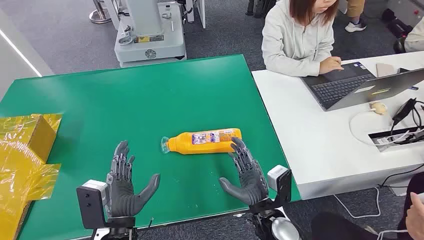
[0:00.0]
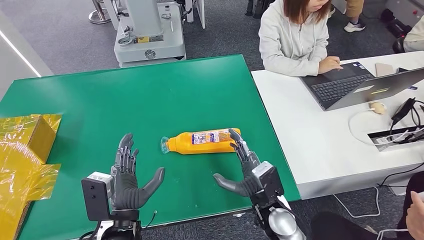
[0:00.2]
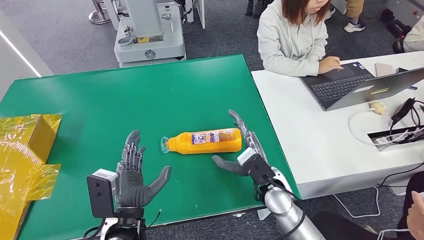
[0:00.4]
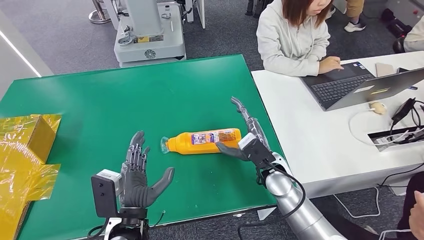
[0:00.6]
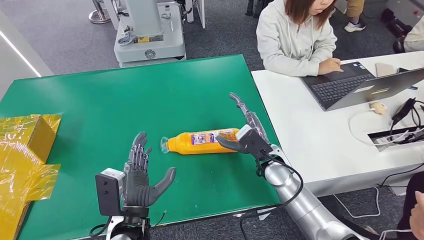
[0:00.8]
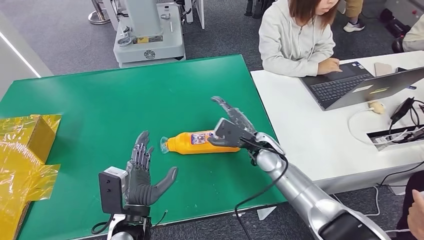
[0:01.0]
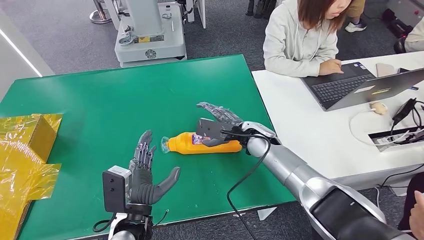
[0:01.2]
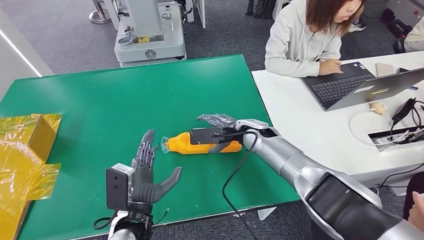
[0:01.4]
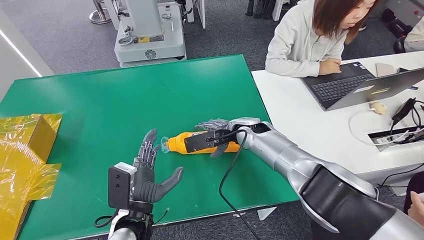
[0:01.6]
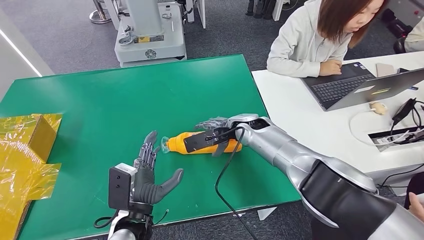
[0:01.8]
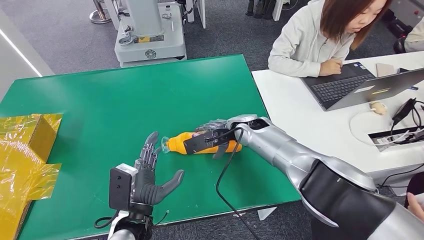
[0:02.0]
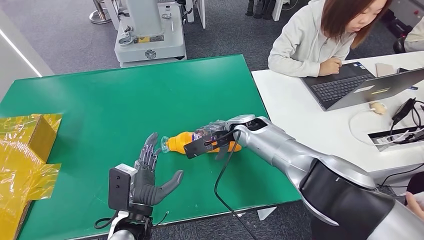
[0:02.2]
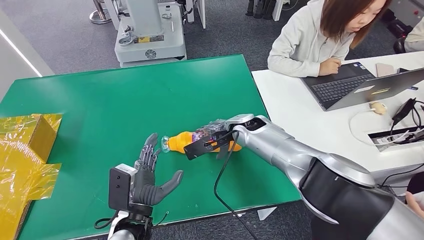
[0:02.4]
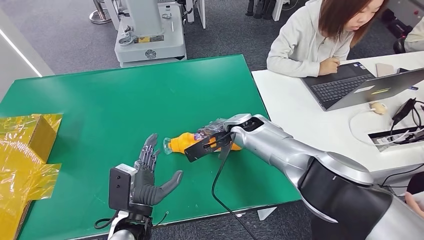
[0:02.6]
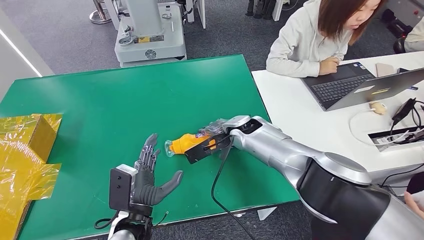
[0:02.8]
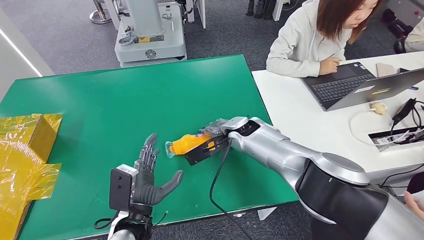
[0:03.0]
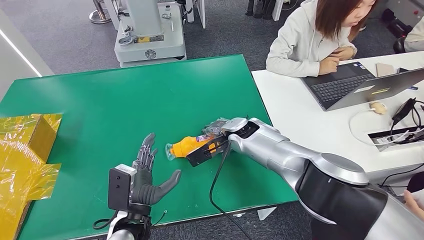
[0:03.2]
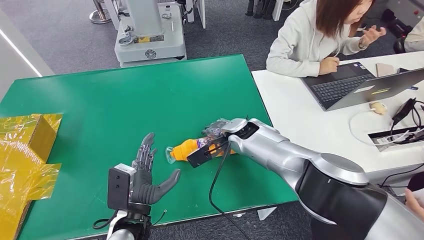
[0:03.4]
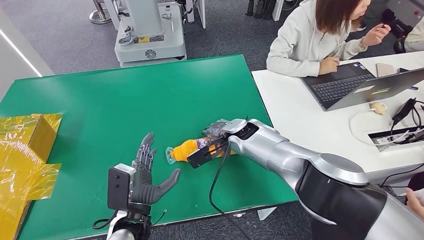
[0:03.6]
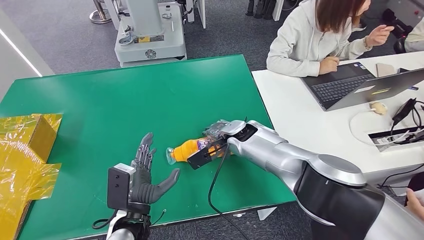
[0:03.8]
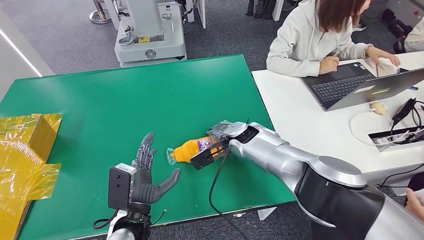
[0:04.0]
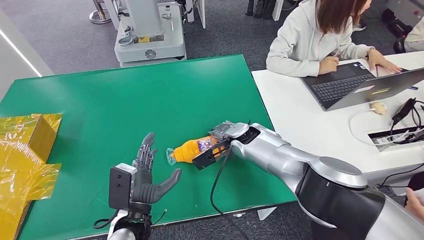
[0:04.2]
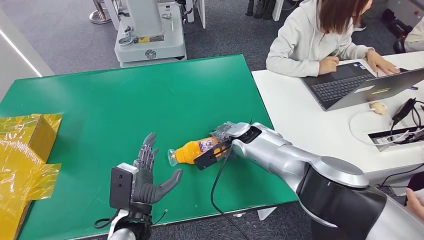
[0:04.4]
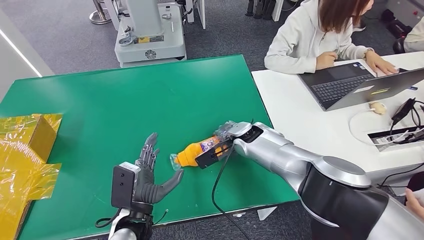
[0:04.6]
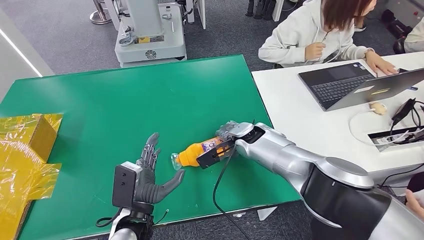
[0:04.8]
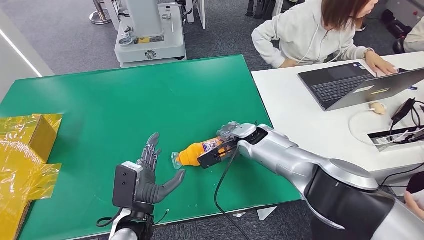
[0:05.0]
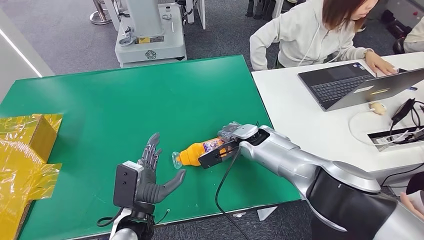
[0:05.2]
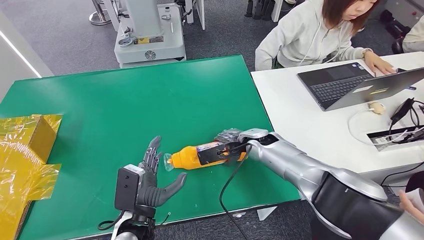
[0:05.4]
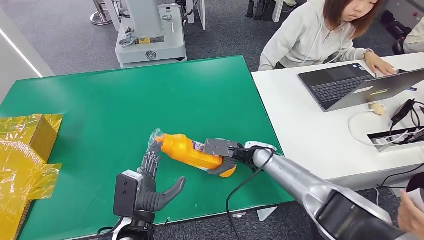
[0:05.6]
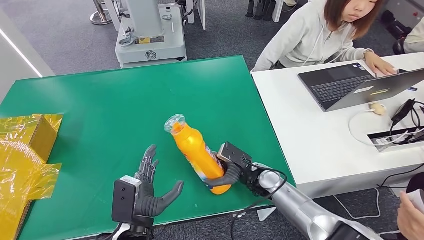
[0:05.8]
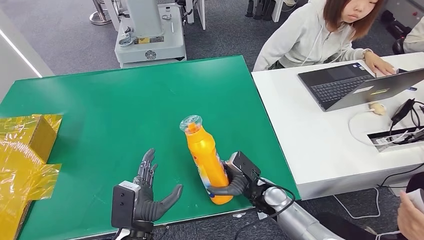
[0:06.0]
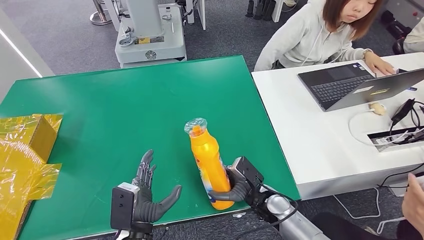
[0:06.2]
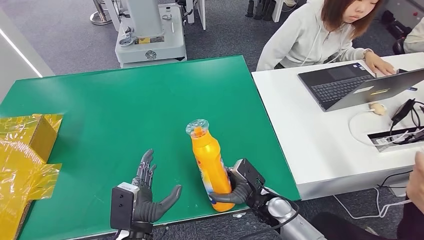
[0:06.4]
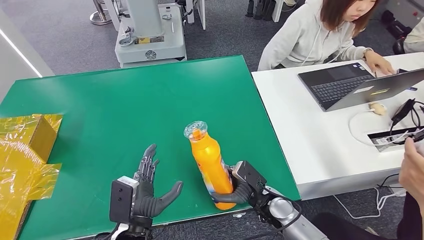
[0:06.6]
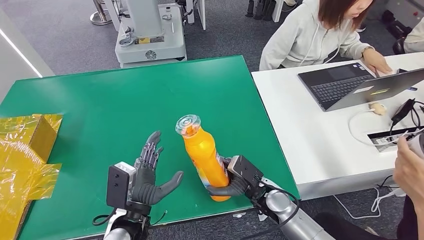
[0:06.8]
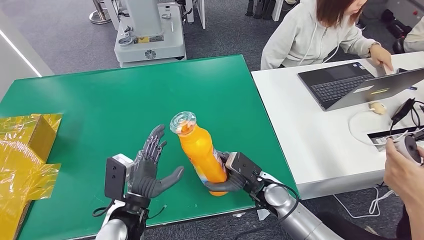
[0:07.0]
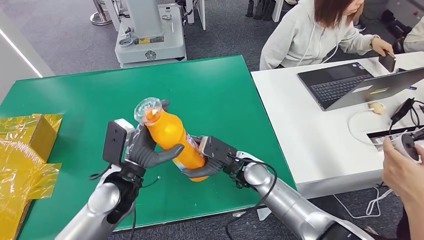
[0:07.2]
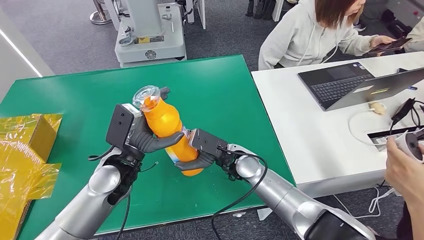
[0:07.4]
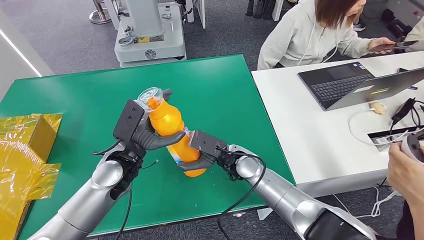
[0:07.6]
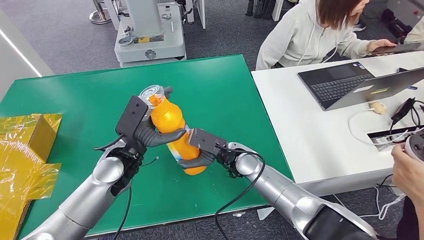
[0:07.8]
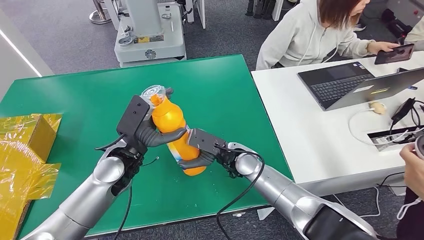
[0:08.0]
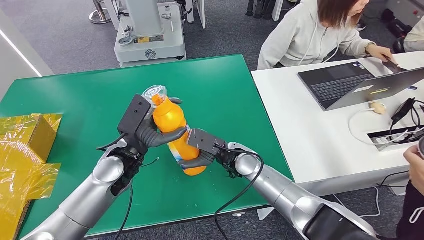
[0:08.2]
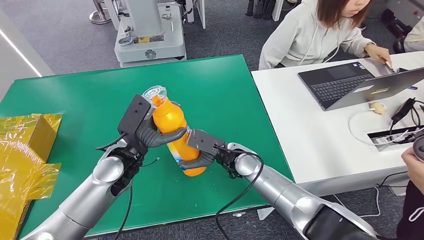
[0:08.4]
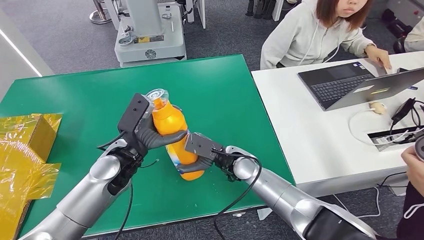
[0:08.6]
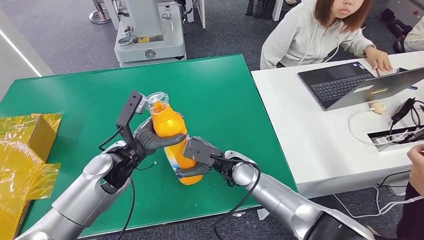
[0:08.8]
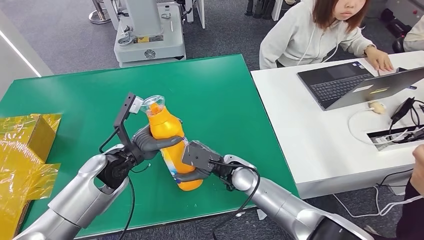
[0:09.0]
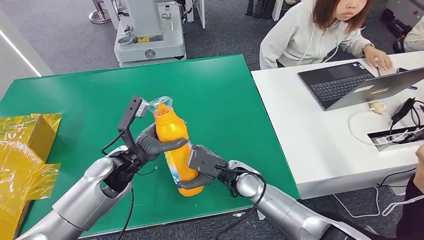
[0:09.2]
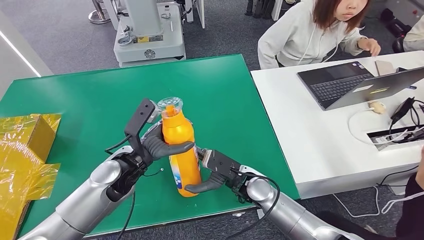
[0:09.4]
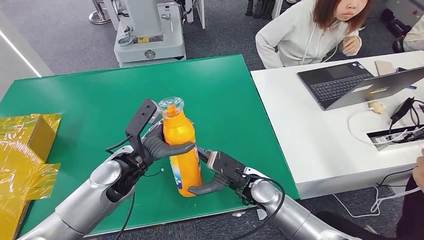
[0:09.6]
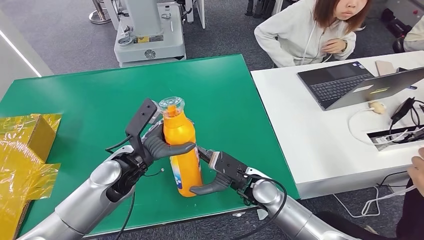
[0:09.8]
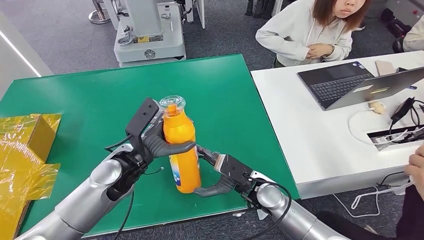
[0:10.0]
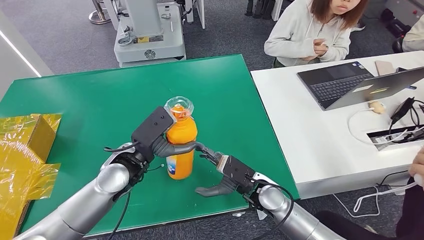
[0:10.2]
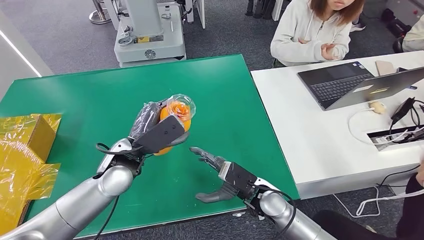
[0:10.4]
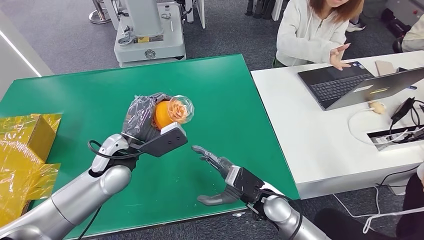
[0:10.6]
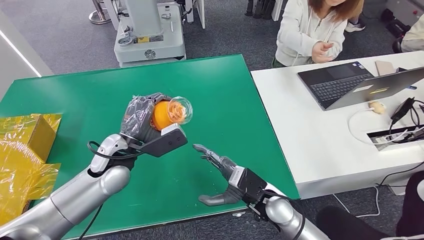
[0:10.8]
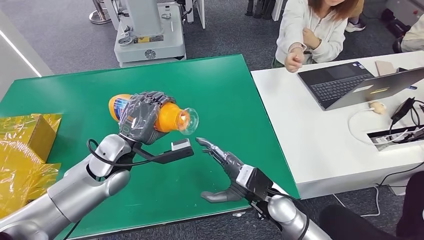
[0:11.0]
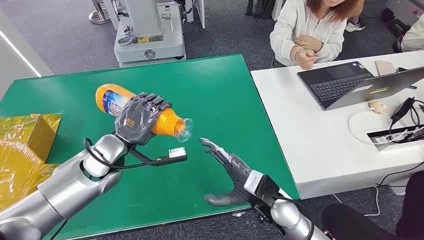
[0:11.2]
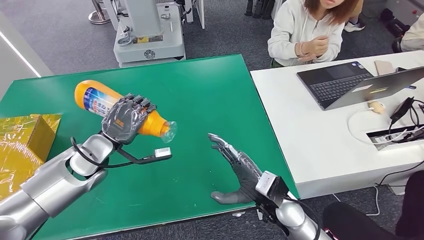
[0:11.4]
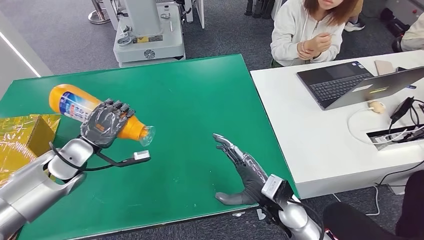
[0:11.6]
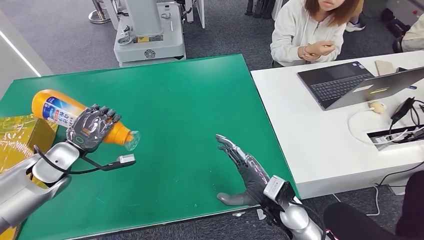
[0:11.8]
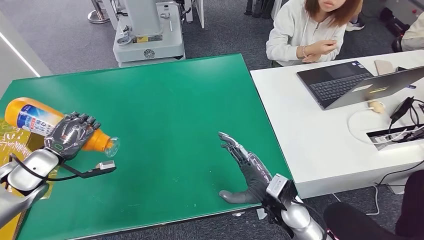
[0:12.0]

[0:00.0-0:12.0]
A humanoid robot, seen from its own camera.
Step, 0:00.0 to 0:06.0: Pick up the bottle from the table.
0:03.0 to 0:04.4: The hands move only a little.
0:09.0 to 0:10.4: The right hand goes some 5 cm backward. Meanwhile the left hand moves upward, about 5 cm.

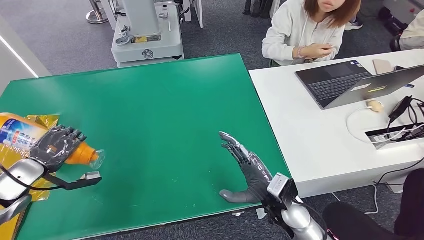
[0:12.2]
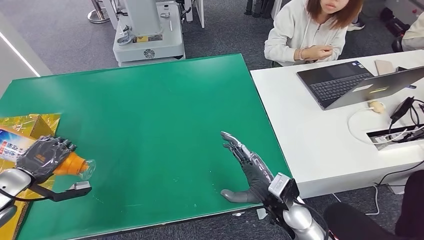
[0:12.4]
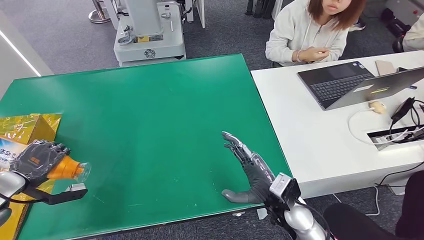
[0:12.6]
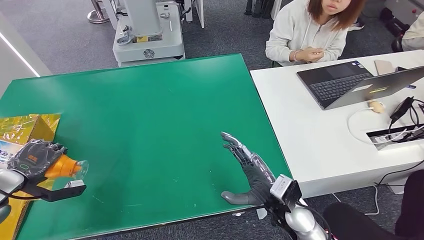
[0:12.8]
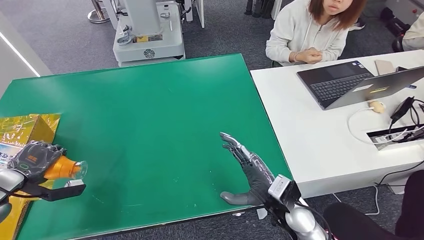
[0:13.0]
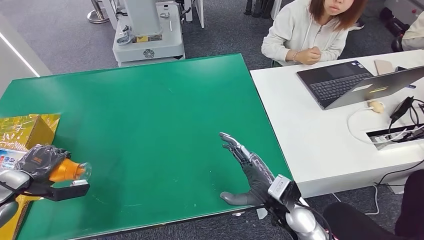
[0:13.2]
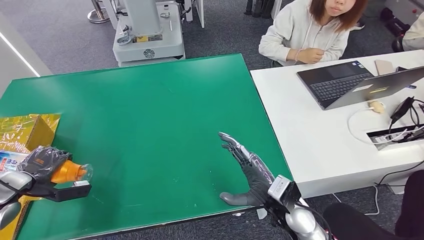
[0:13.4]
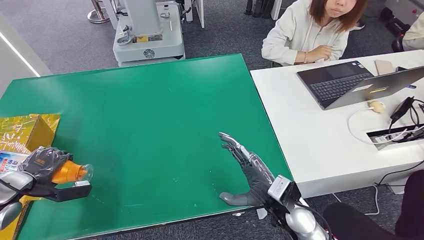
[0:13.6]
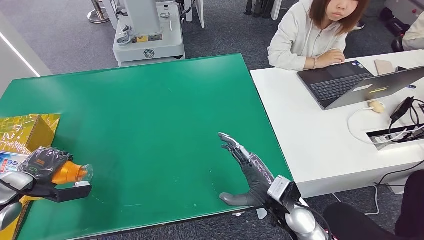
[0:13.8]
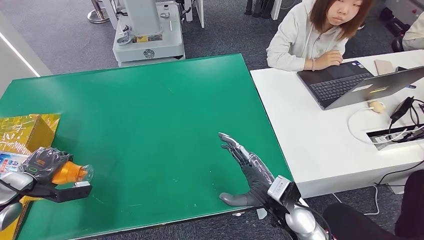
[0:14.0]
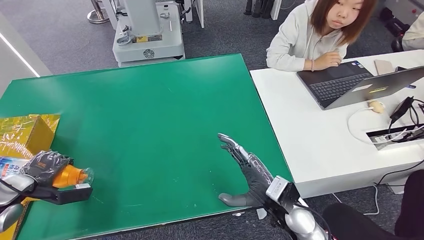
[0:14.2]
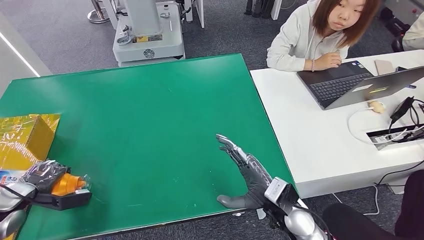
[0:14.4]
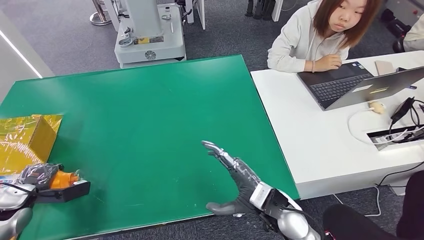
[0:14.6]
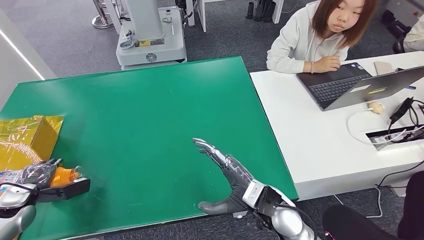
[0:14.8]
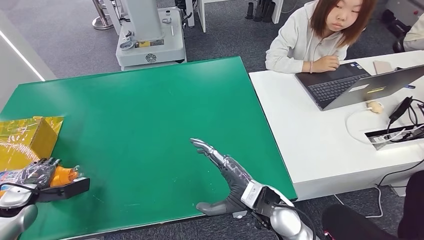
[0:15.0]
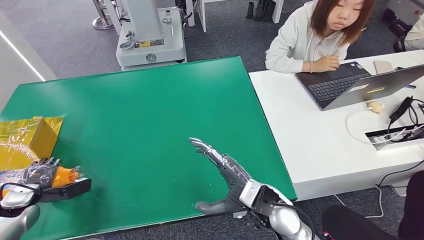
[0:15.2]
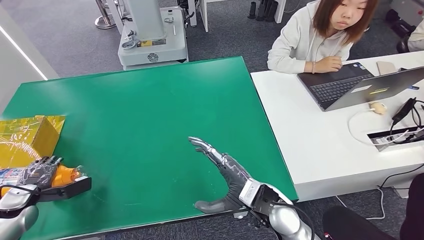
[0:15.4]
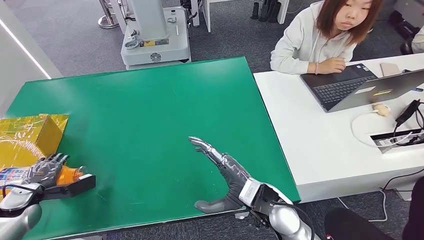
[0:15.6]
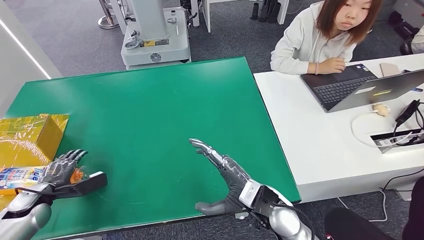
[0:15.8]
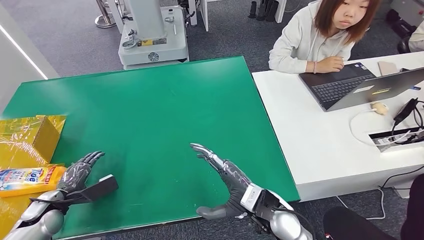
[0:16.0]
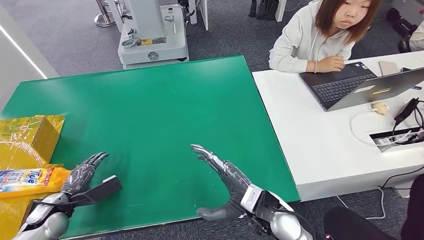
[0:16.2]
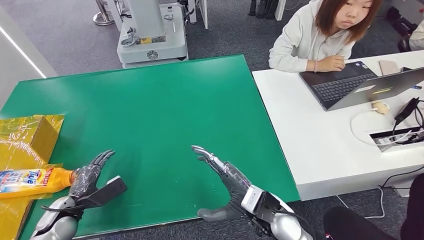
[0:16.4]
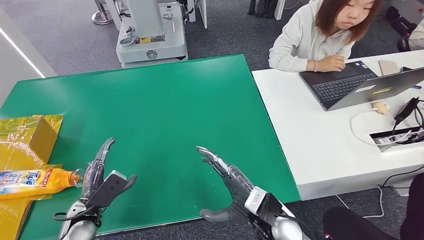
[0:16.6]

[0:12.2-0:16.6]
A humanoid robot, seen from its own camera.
Step, 0:12.2 to 0:16.6: Turn the bottle to the front side.
0:12.2 to 0:13.6: The left hand moves approximately 5 cm.
